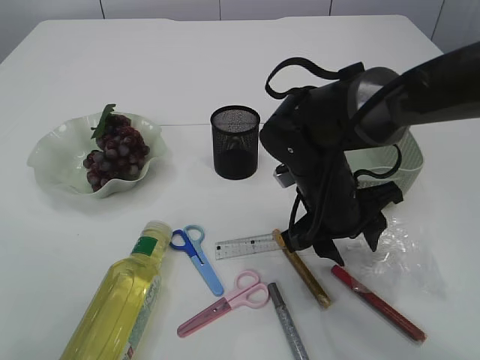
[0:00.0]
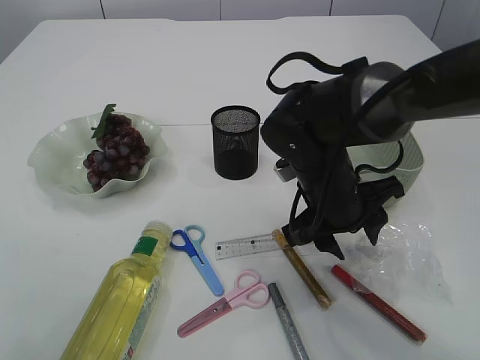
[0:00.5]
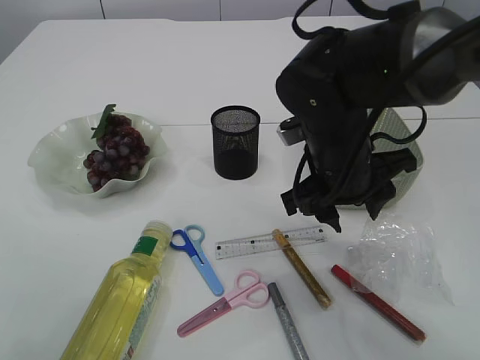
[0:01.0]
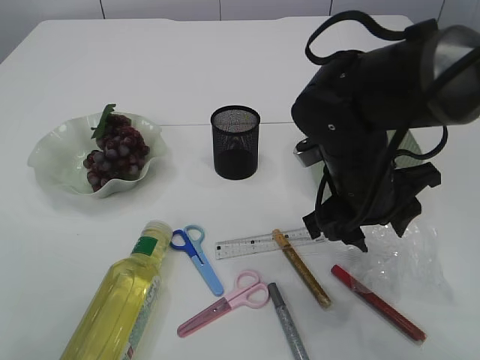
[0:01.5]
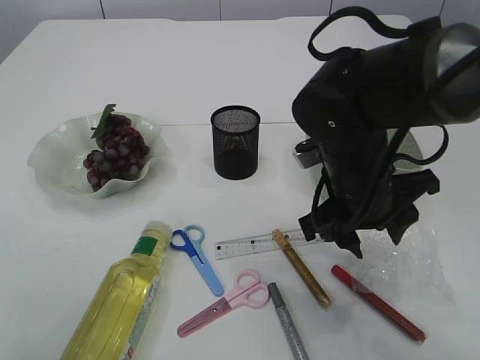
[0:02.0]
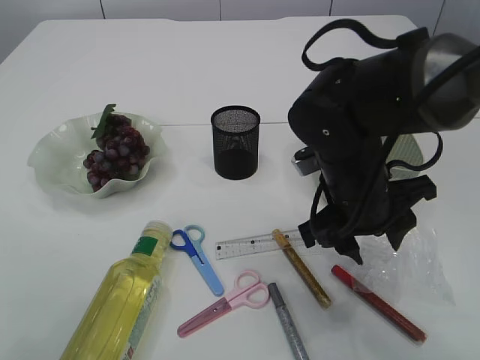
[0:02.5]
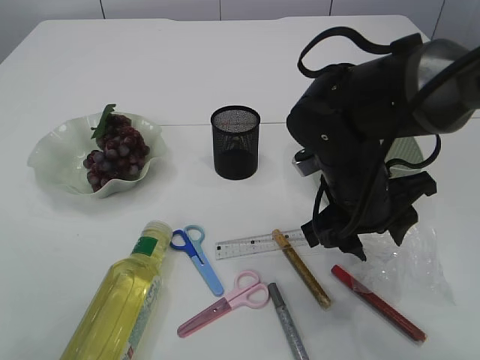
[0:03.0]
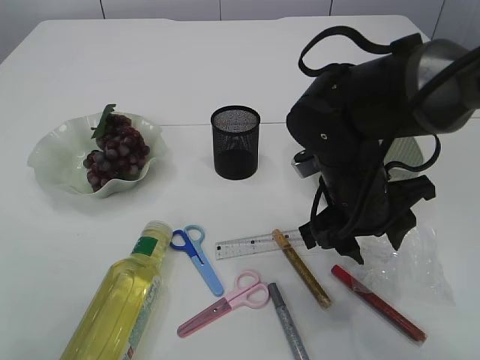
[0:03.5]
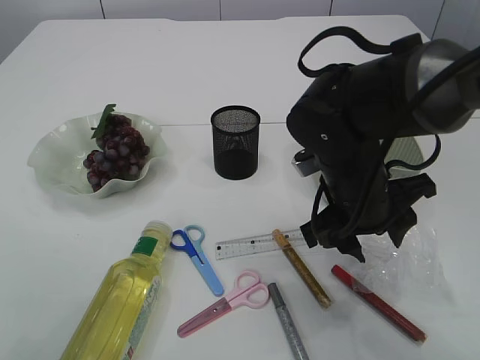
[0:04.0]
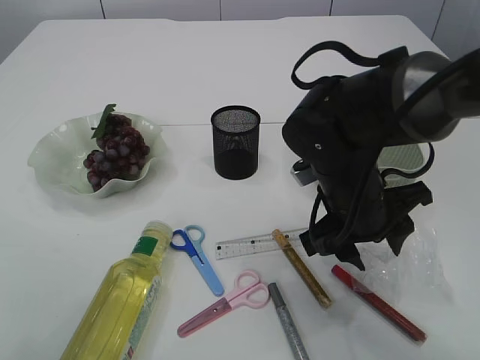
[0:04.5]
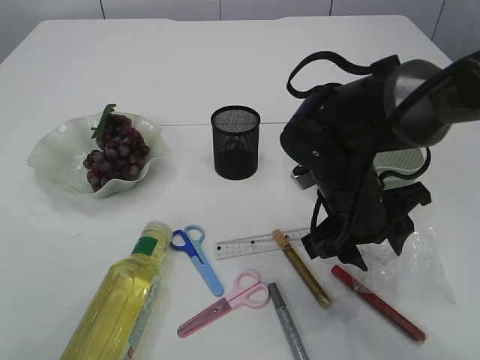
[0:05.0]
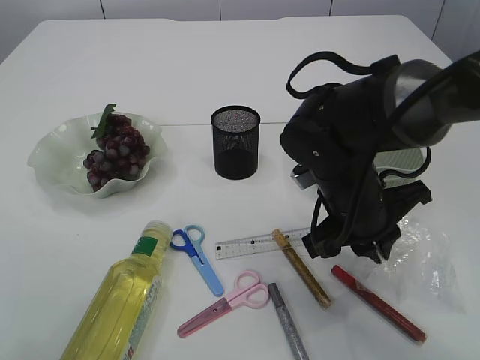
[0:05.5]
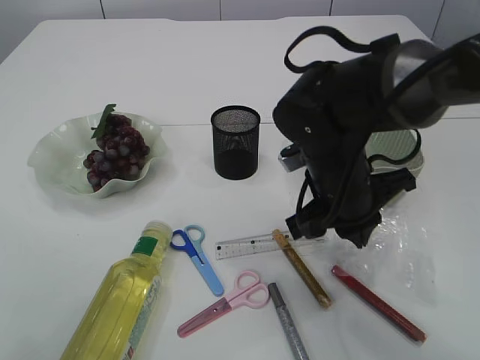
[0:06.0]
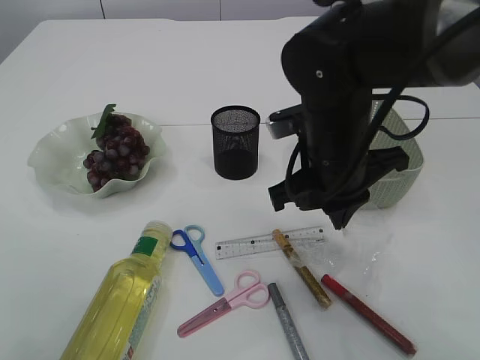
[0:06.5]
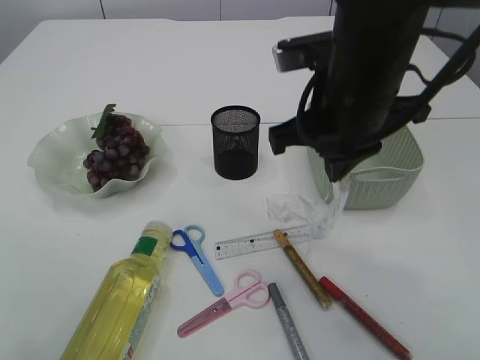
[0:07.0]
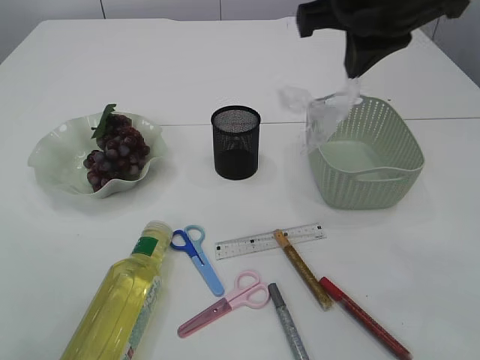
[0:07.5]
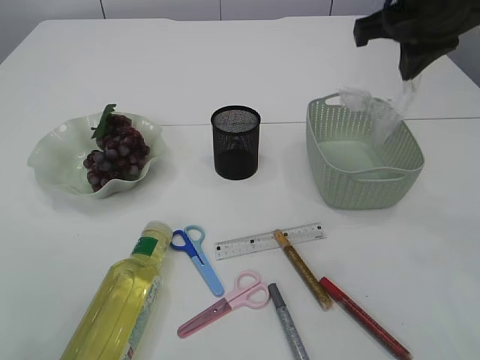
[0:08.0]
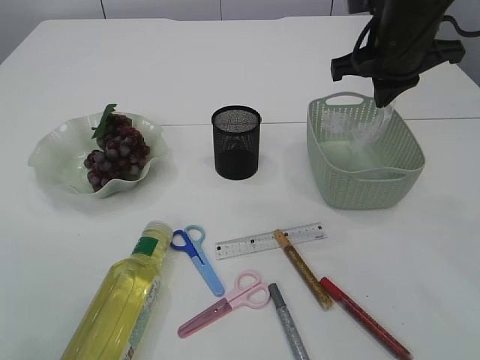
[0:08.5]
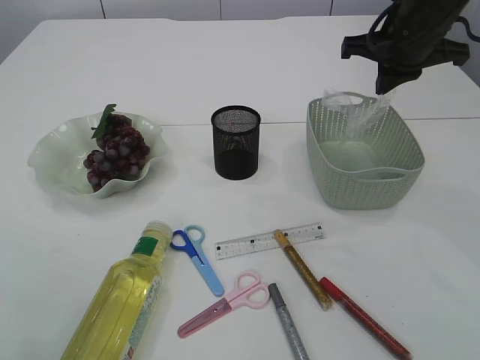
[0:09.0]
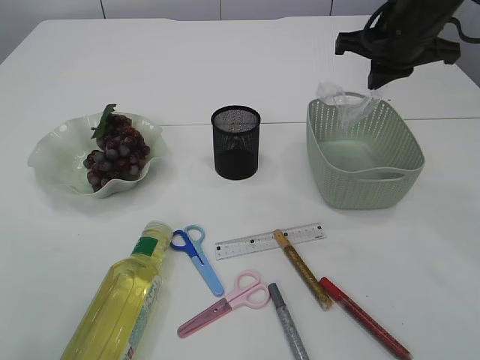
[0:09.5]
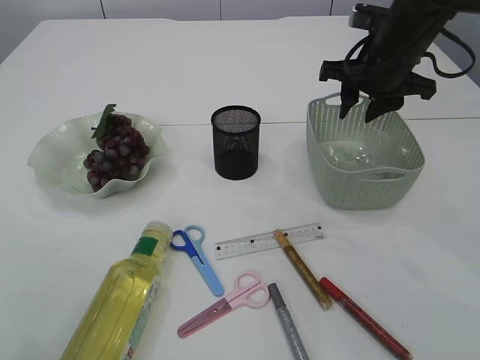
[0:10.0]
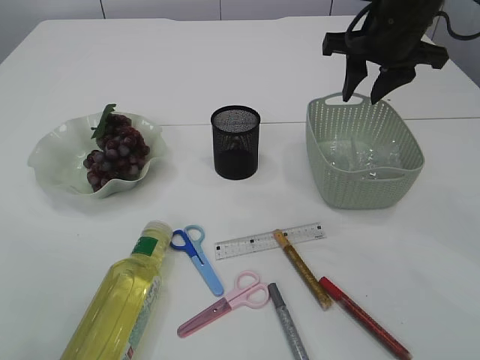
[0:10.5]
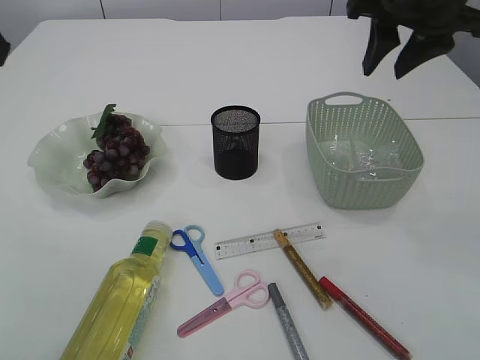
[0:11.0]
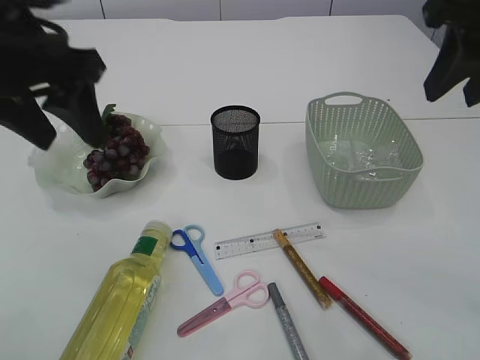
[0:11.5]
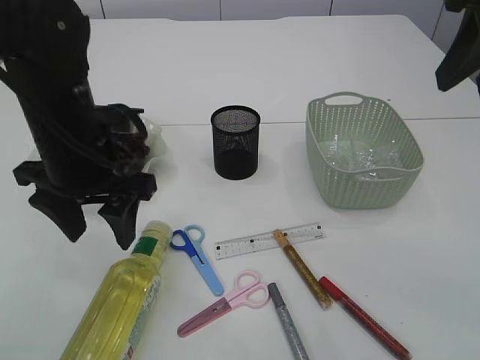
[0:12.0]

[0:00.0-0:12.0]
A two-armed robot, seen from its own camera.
Step, 0:00.0 to 0:06.5: Pick up the plastic.
Step, 0:07.0 to 0:11.0: Place the plastic in the basket.
0:00.0 to 0:02.0: The right gripper moves about 5 cm.
0:02.0 to 0:04.0: Neither gripper changes place.
0:04.0 to 0:06.0: The right gripper closes its fingers.
0:06.0 to 0:08.0: The right gripper is displaced upward and to the right by some 20 cm.
0:08.0 to 0:10.0: The right gripper moves downward and forward, roughly 10 cm, and opens up.
0:10.0 to 0:12.0: The right gripper goes roughly 25 cm backward and upward. The left gripper goes about 20 cm downward and to the right.

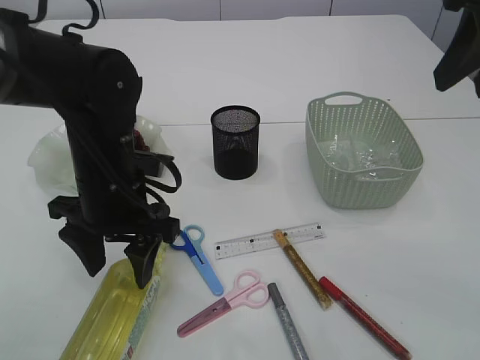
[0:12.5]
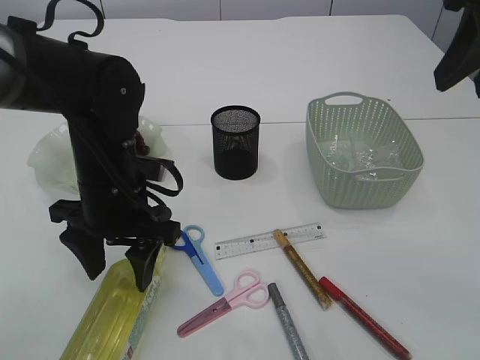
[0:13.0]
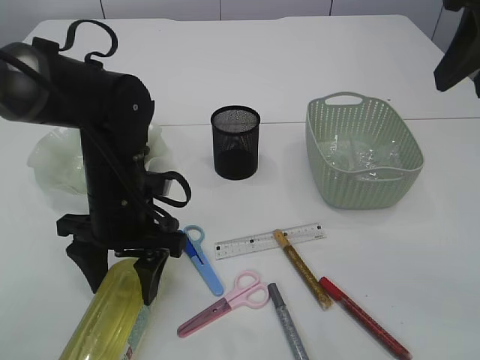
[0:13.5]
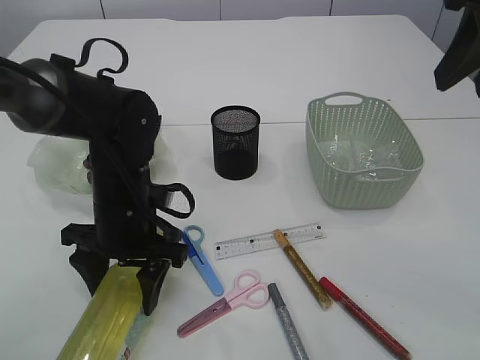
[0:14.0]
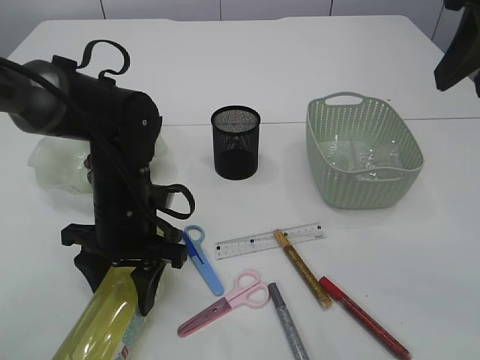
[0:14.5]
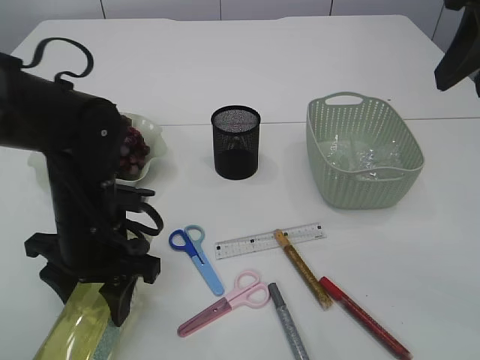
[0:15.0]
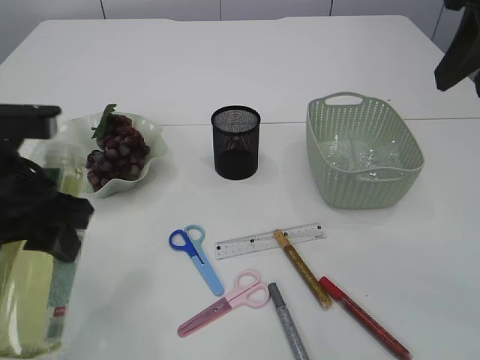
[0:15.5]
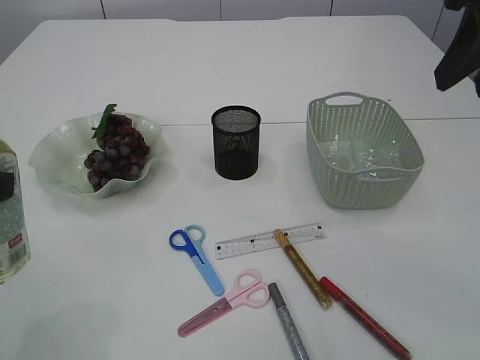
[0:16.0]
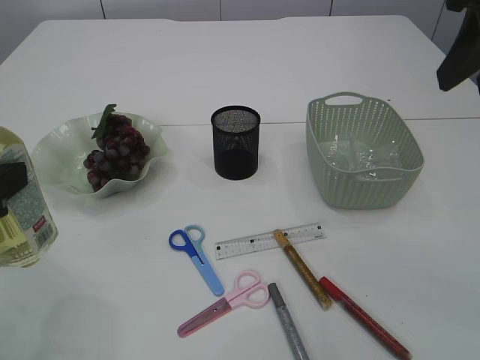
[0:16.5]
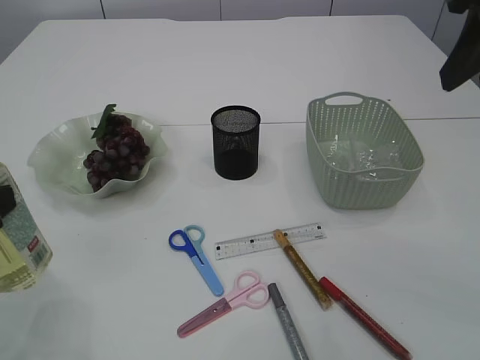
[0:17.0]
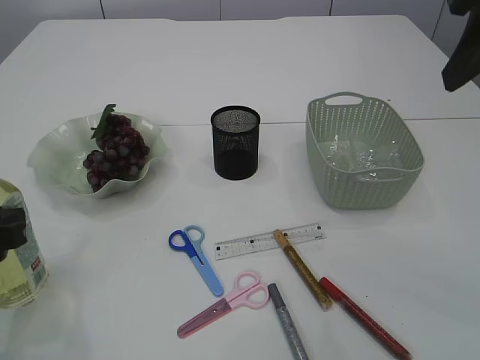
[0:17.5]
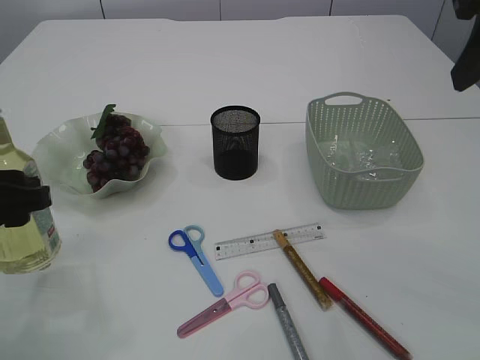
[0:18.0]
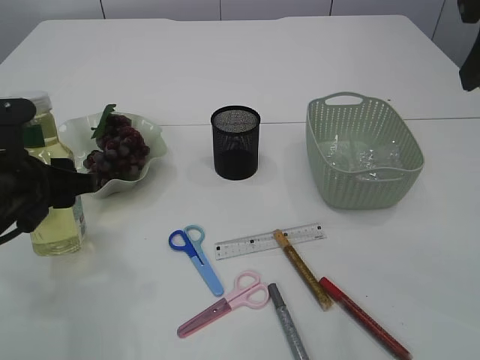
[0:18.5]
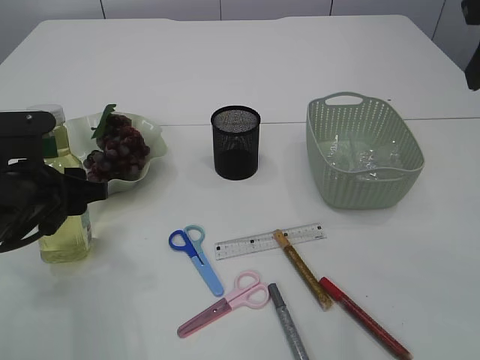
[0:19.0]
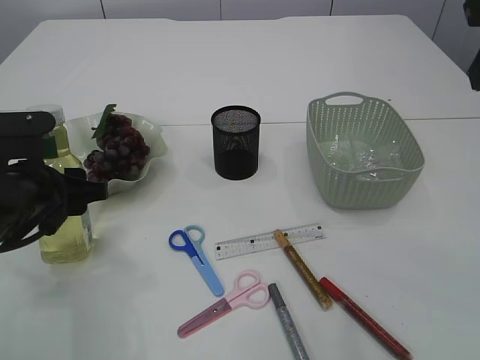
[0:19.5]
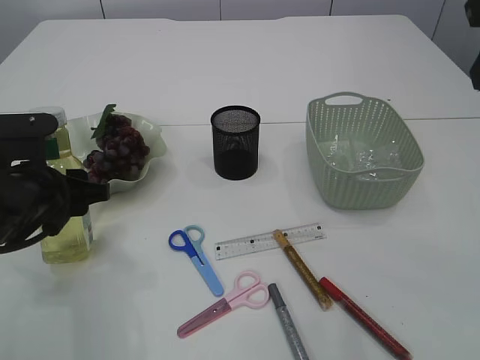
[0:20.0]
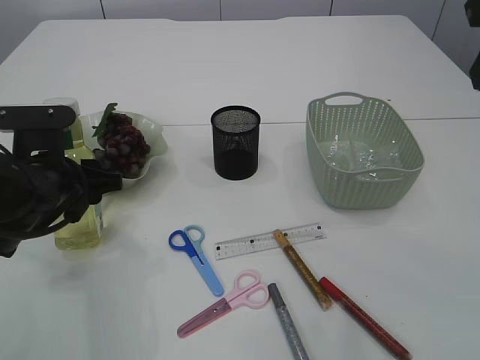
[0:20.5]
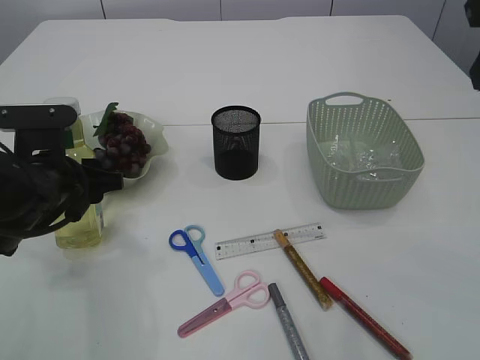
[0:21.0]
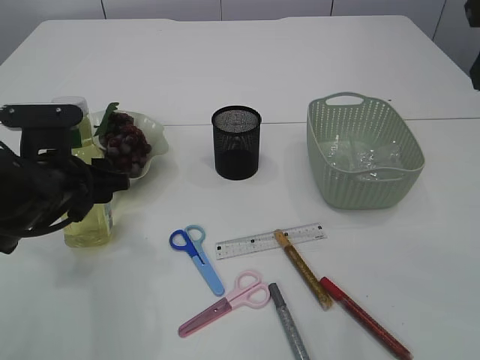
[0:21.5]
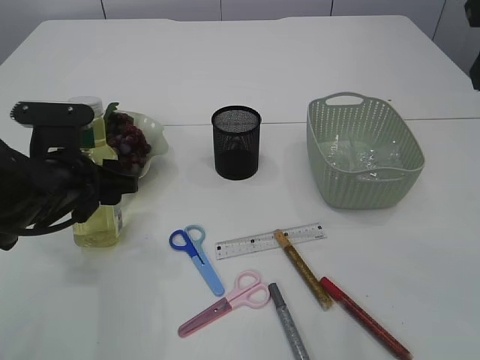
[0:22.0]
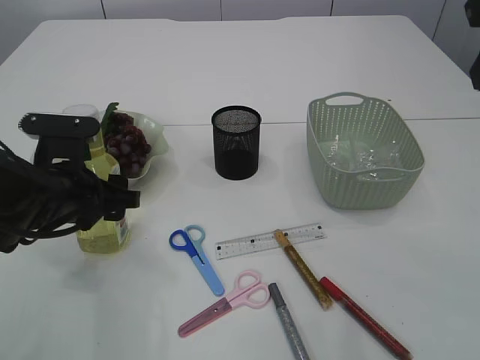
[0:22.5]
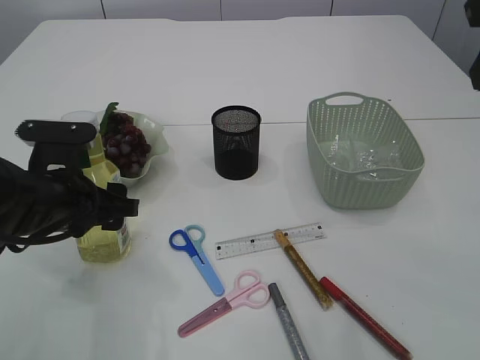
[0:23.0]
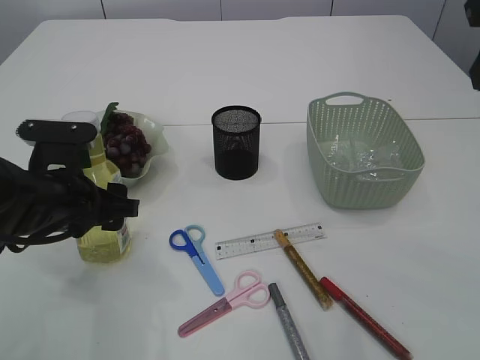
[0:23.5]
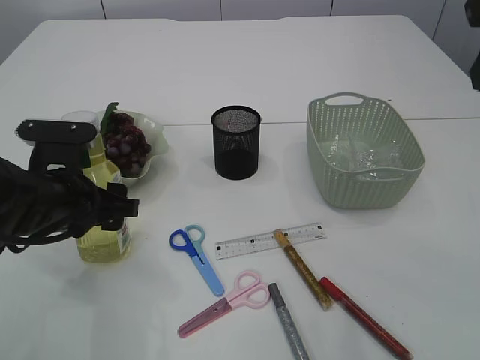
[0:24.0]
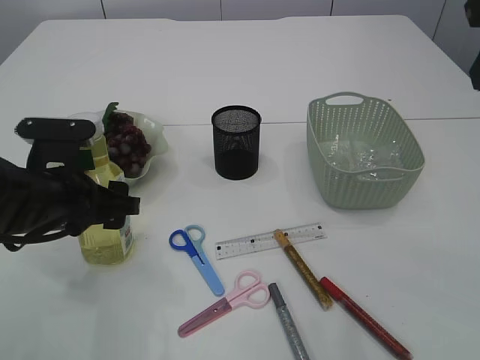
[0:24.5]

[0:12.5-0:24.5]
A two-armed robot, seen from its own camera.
Step, 0:12.5 to 0:15.0: Pick up the bottle with the left arm.
0:12.5 to 0:14.5: The left gripper moves about 5 cm.
0:14.5 to 0:16.5: The left gripper goes roughly 20 cm backward, to the left and upward.
0:16.5 to 0:18.5: The left gripper is displaced forward and downward by approximately 10 cm.
0:18.5 to 0:24.5: The grippers make only small movements.

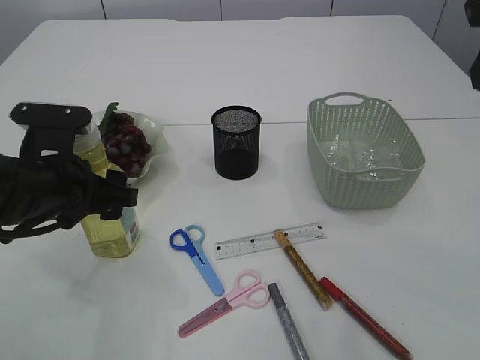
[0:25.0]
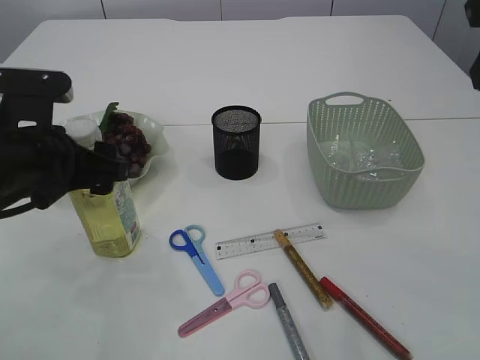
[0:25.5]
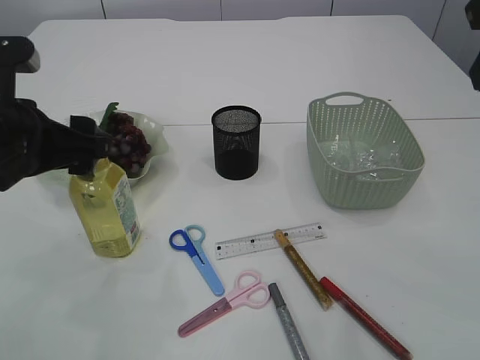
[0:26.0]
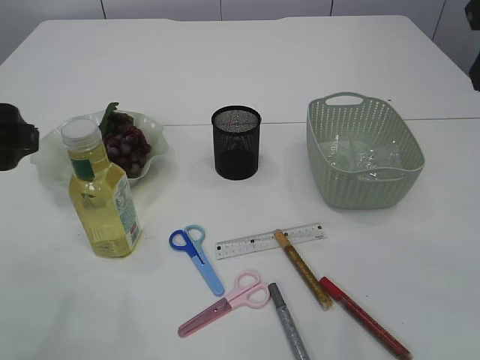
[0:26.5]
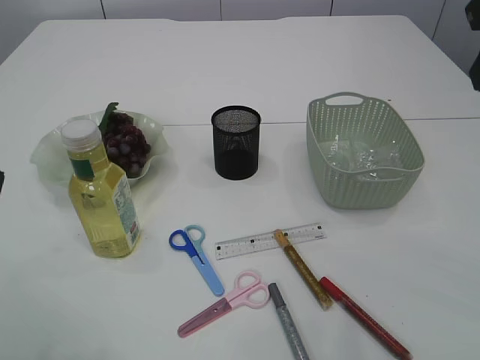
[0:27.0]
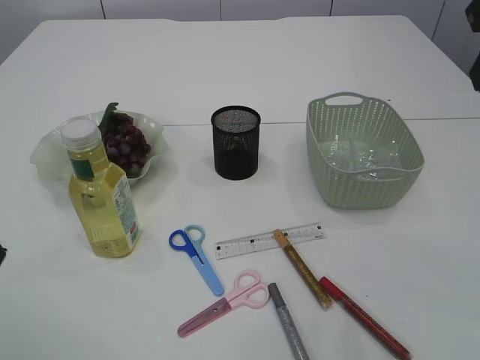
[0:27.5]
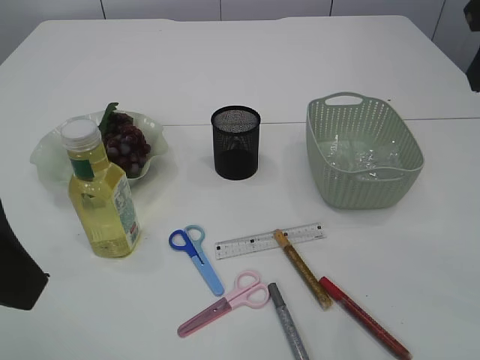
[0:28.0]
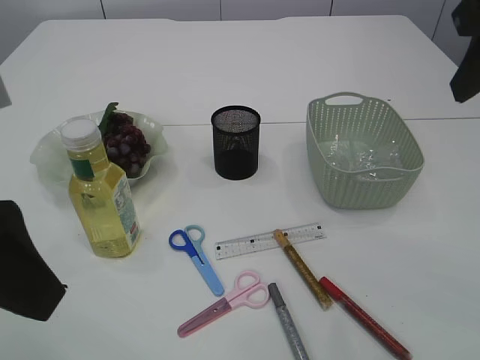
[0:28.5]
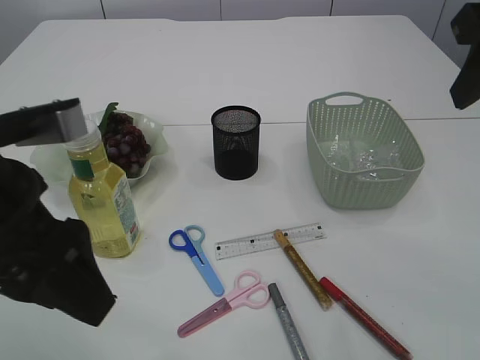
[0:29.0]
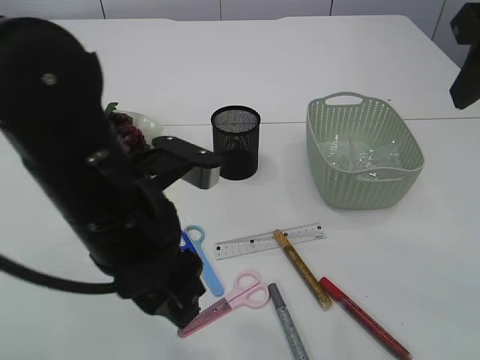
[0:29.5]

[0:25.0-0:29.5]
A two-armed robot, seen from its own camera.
0:25.0 to 0:27.0: The left gripper heads upward and backward, covering some 15 cm.
0:27.0 to 0:29.5: The left gripper is displaced to the right and downward by roughly 15 cm.
